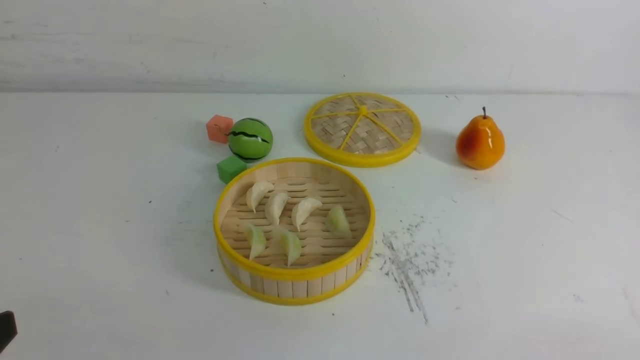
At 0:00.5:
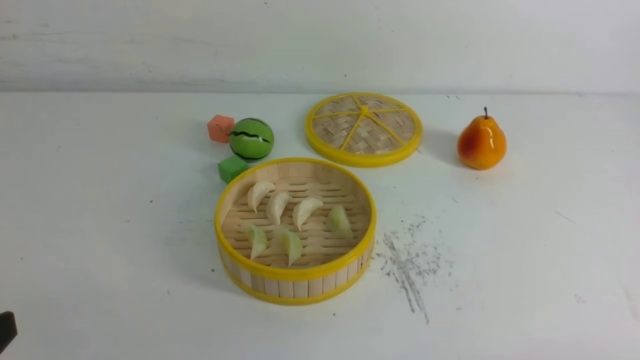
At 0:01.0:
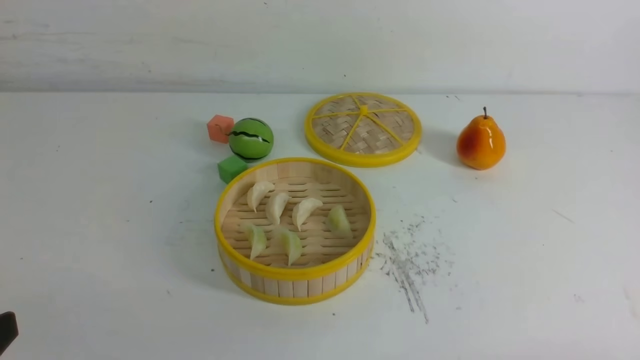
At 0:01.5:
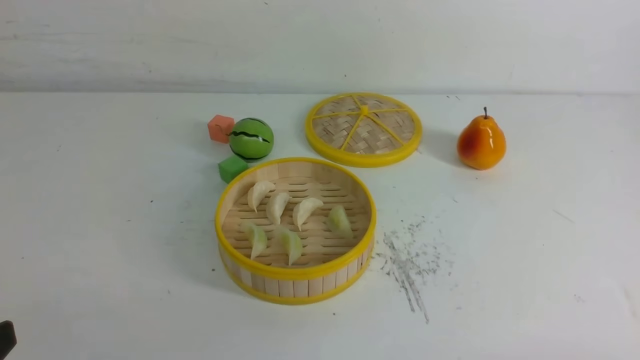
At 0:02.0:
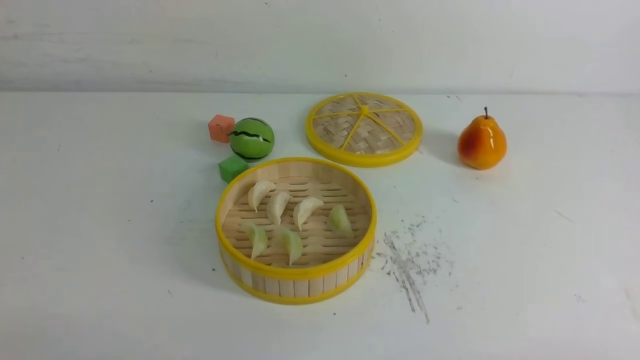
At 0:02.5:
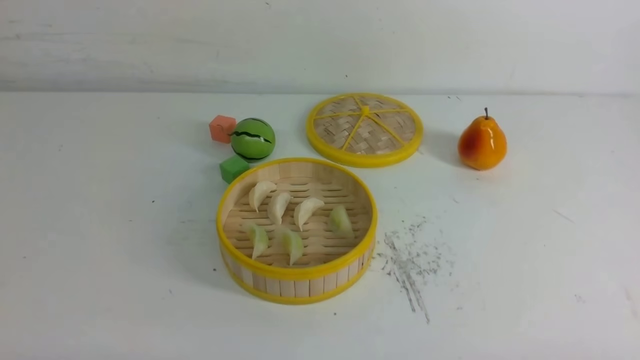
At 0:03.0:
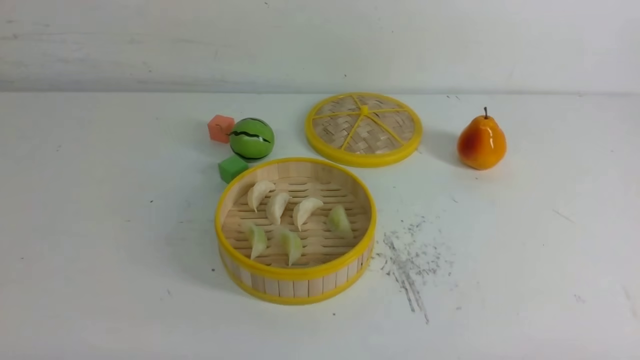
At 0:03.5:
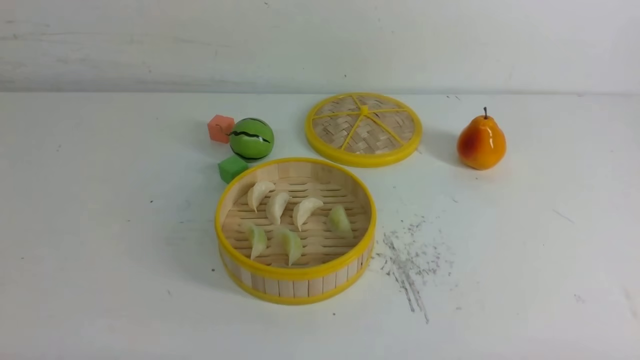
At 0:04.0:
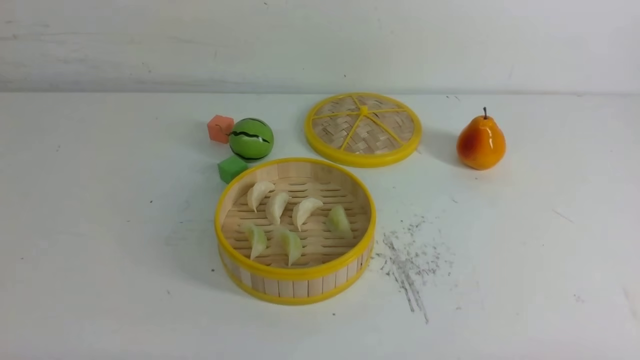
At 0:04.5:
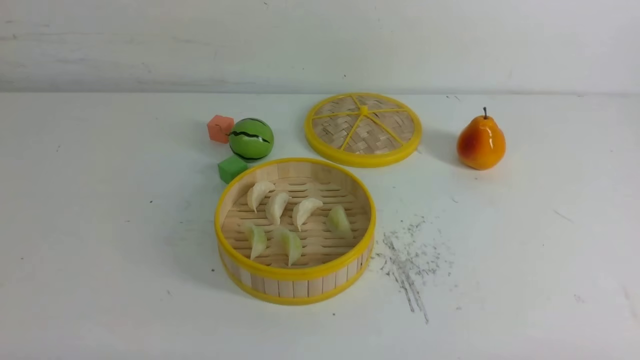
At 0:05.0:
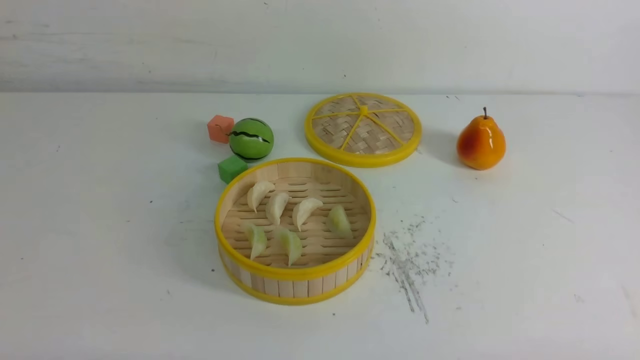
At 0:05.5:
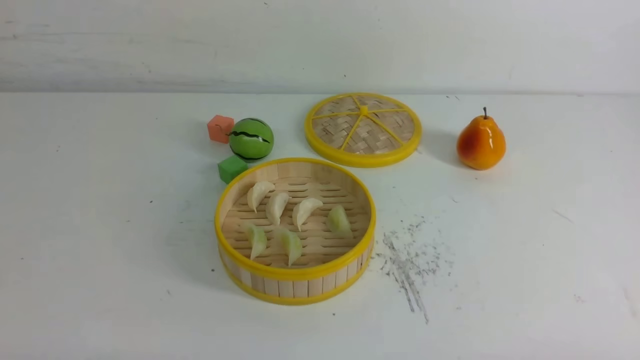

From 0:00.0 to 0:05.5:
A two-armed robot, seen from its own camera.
Task of the whole recording: put the dumplings into the steamer on the white table.
From 0:03.5 to 0:05.5: Neither gripper changes place.
